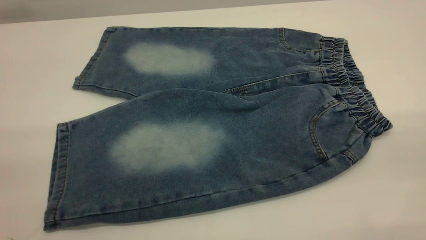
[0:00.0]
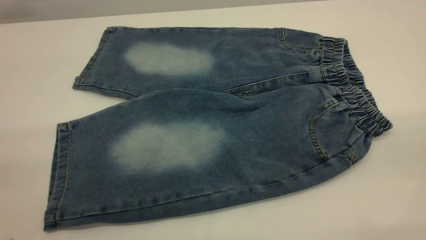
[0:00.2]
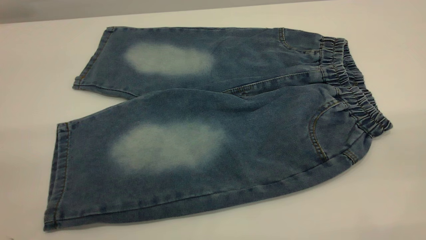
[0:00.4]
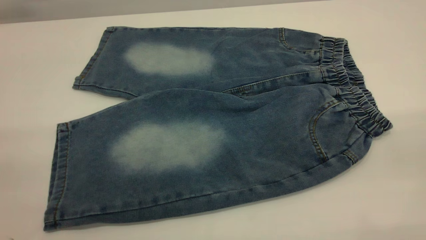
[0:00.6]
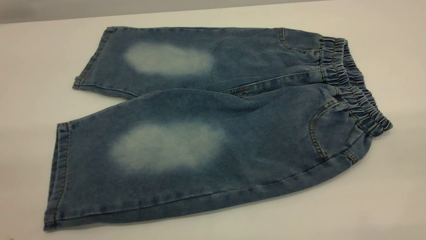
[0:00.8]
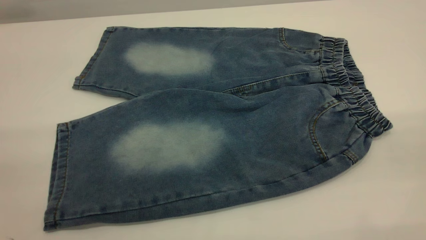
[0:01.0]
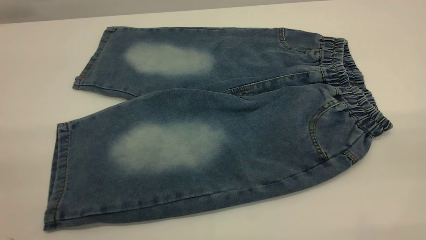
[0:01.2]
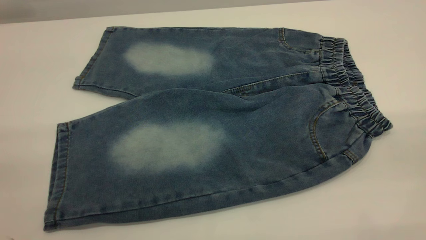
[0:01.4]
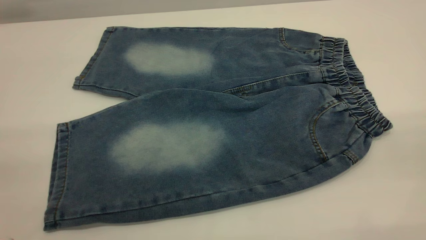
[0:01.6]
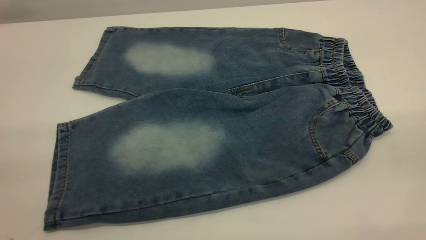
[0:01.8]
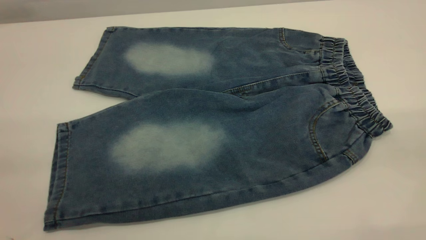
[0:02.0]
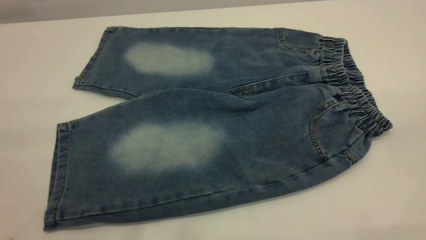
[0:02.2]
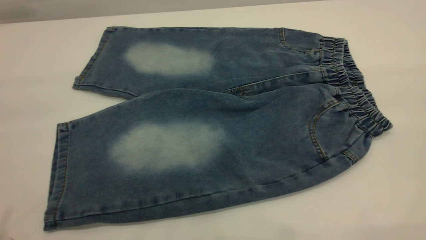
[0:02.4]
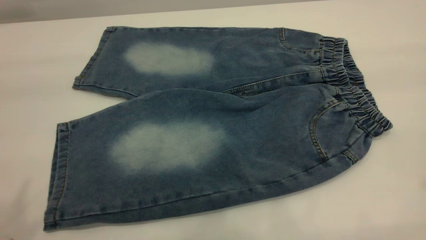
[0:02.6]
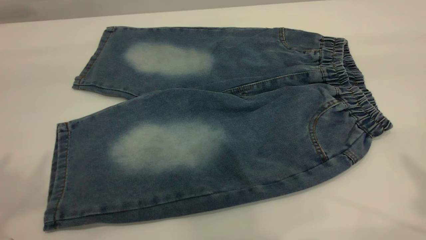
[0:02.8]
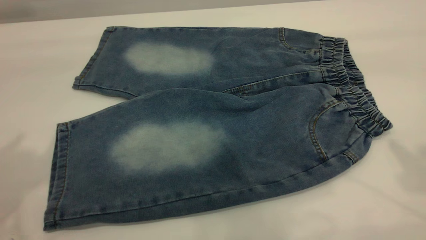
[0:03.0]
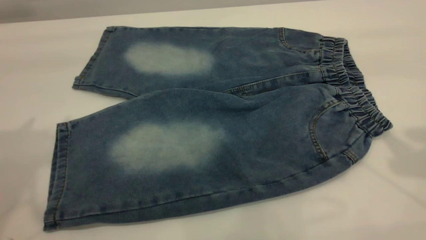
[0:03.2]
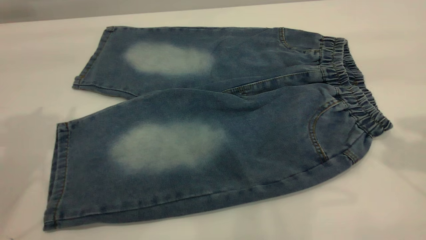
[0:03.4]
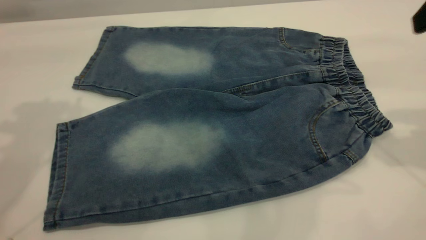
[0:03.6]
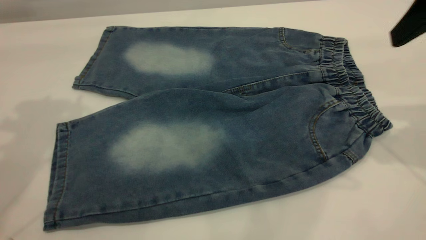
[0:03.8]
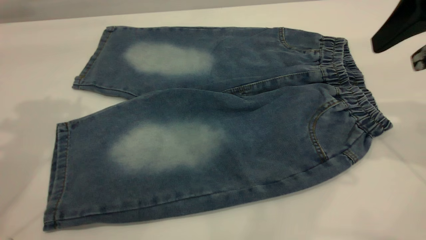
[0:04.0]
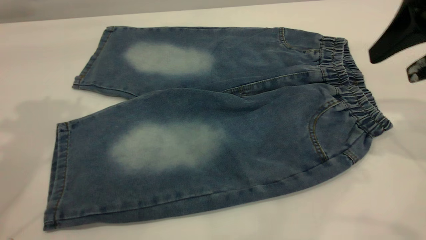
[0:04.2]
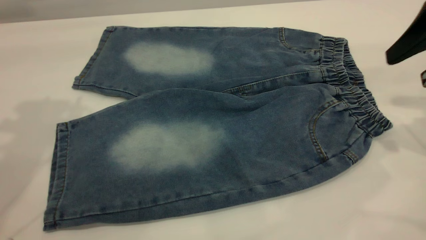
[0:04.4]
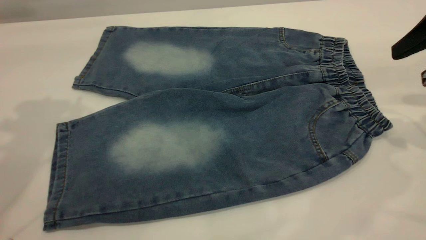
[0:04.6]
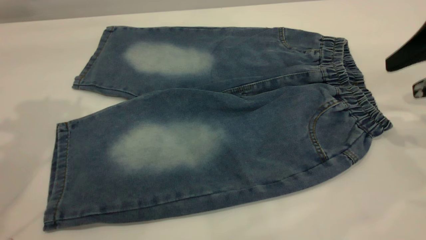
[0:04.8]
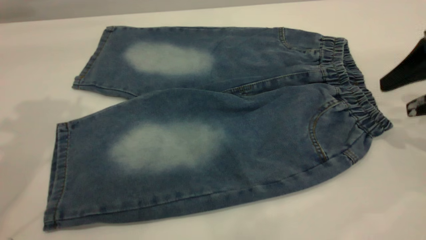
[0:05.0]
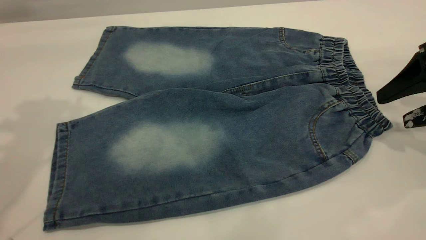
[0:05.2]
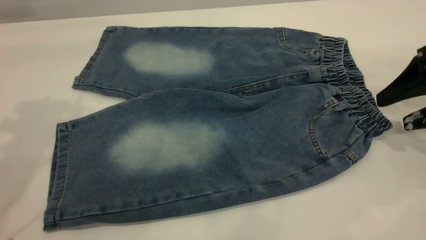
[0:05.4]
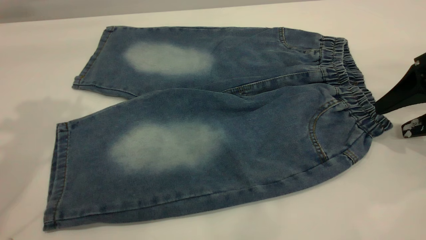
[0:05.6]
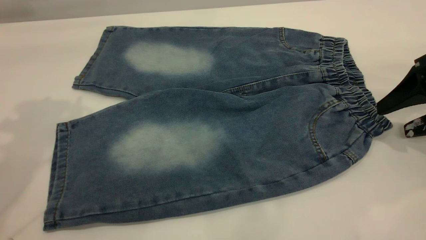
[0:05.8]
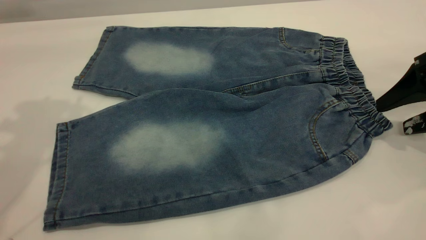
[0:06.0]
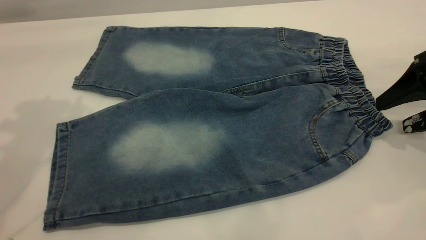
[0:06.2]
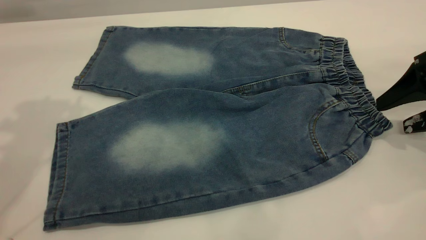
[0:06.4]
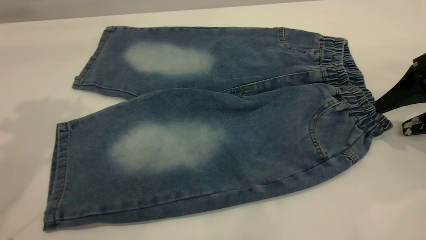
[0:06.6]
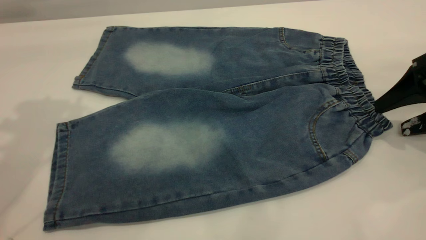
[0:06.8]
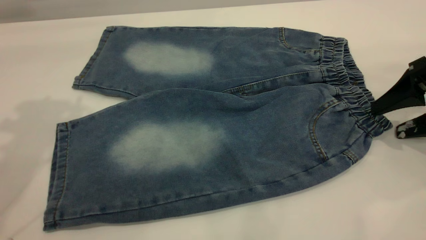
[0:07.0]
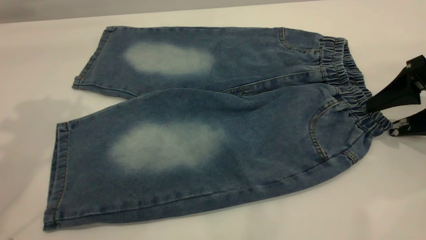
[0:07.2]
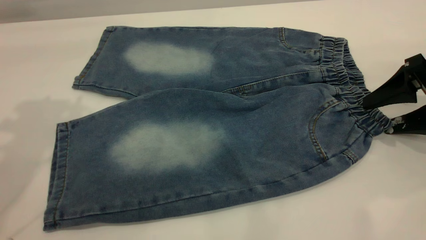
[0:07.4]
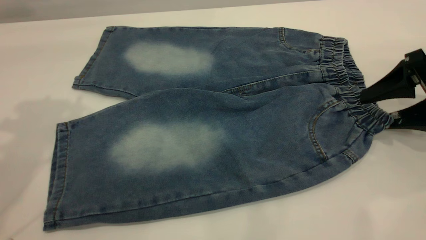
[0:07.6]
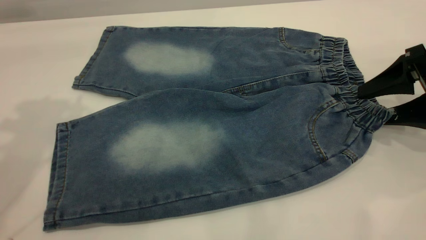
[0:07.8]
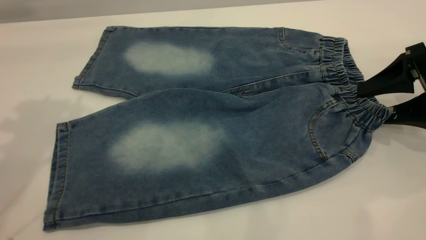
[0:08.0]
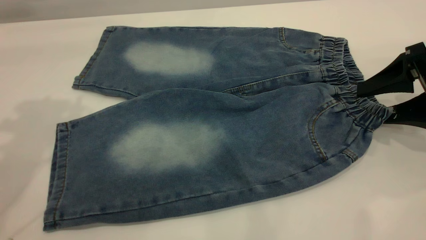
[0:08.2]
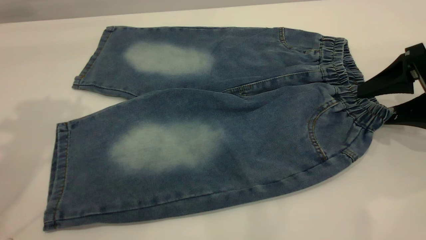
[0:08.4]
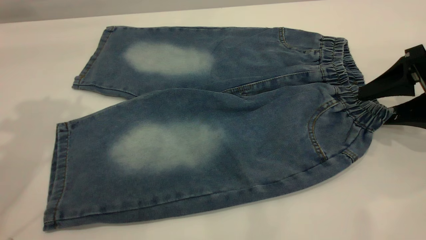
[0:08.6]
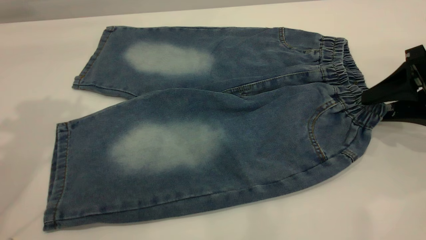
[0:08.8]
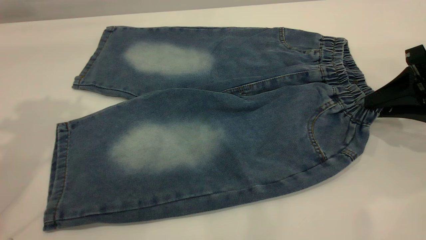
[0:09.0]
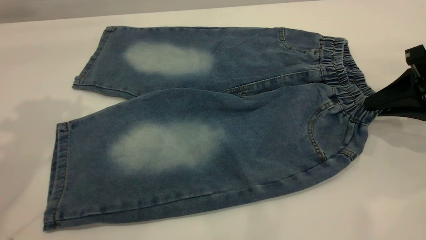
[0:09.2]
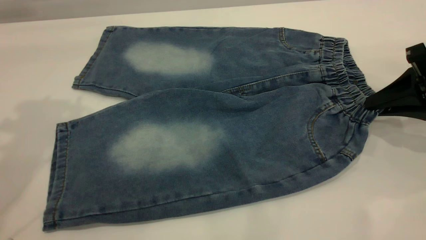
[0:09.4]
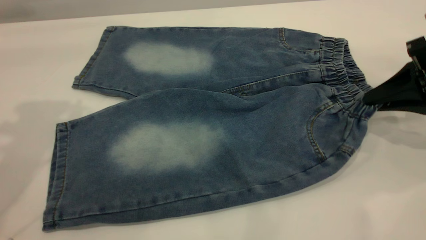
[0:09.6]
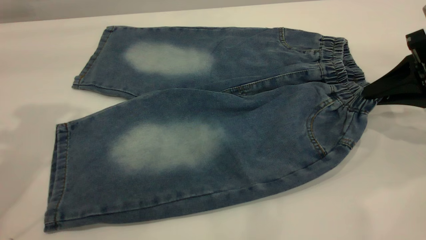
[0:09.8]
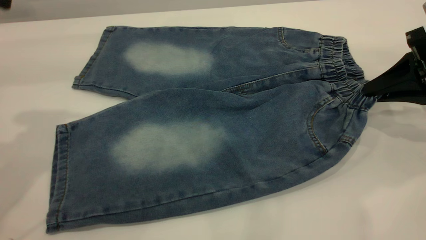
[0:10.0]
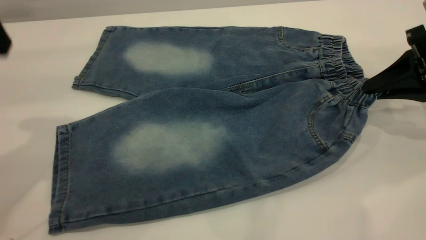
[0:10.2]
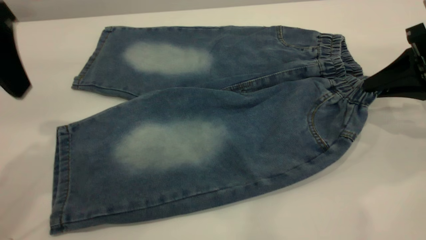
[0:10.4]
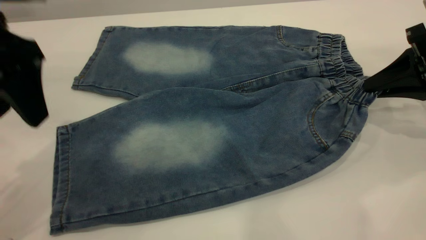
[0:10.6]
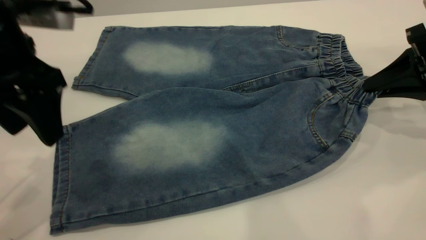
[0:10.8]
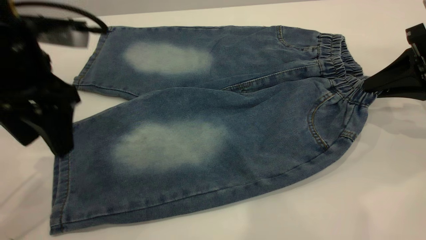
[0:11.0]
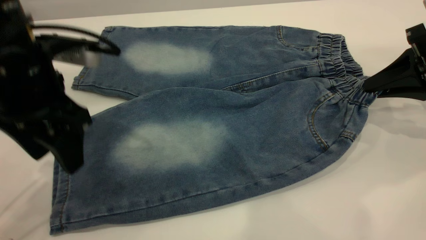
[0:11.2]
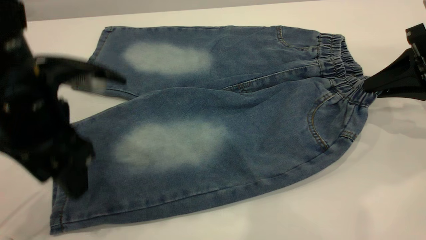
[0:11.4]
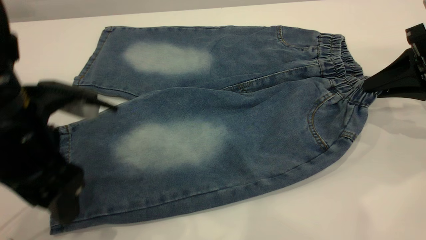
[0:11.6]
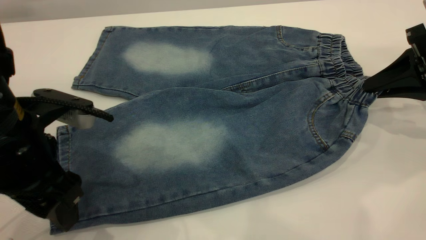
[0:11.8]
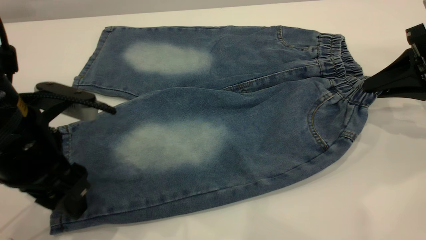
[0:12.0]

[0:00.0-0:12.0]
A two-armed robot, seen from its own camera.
0:00.0 to 0:01.6: Both grippers stay about where they are.
0:03.0 to 0:04.4: The left gripper moves forward, approximately 10 cm. The right gripper is displaced downward and forward by roughly 15 cm.
0:04.4 to 0:06.0: The right gripper goes approximately 10 cm downward.
0:06.0 to 0:07.6: The grippers stay close to where they were, moving slightly.
0:07.6 to 0:09.0: The right gripper closes its fingers.
0:09.0 to 0:10.4: The left gripper shifts roughly 5 cm downward.
0:10.4 to 0:12.0: The left gripper goes some 15 cm downward.

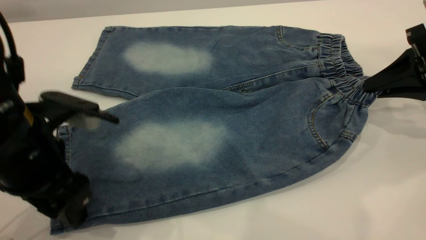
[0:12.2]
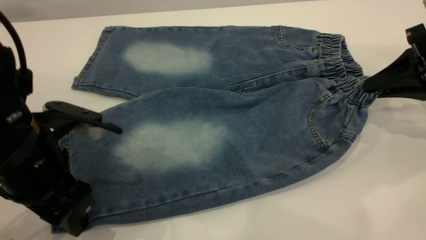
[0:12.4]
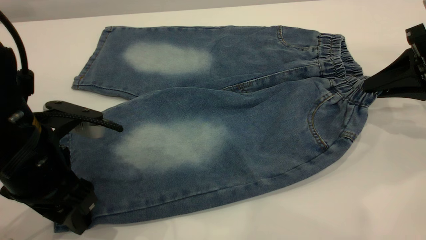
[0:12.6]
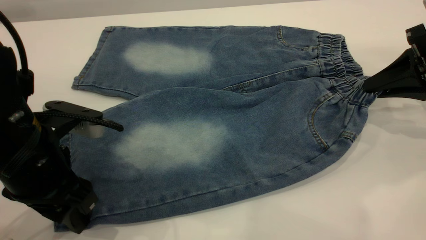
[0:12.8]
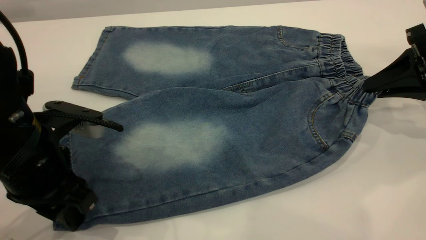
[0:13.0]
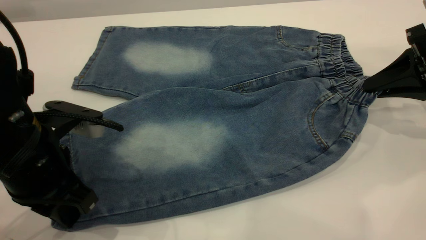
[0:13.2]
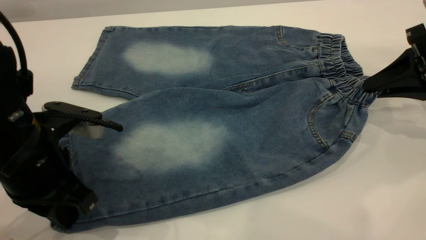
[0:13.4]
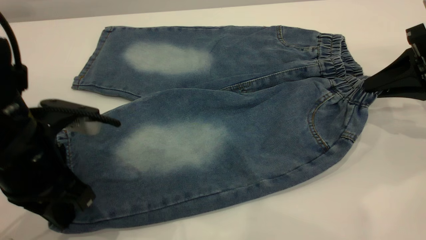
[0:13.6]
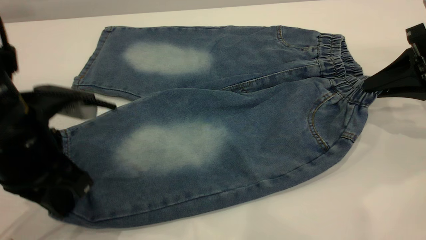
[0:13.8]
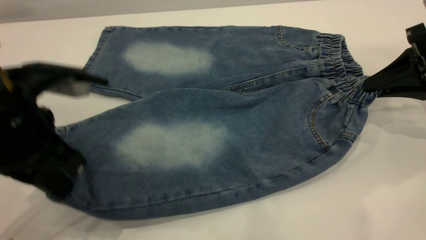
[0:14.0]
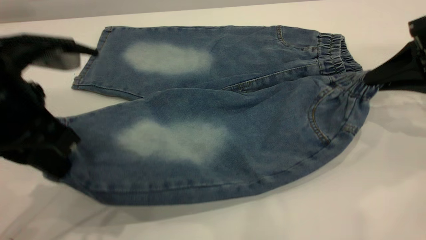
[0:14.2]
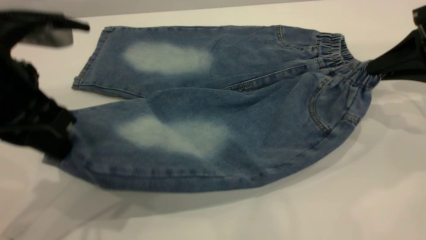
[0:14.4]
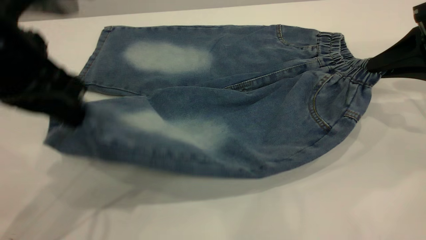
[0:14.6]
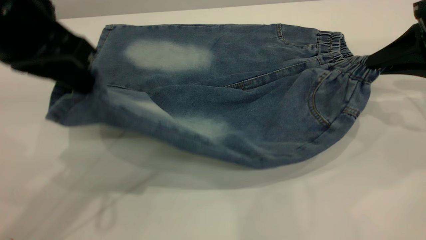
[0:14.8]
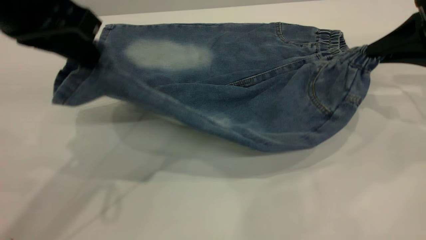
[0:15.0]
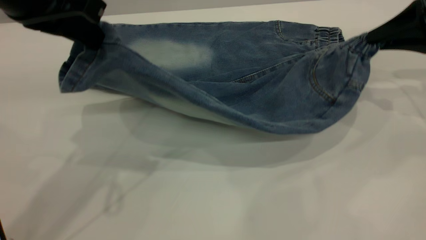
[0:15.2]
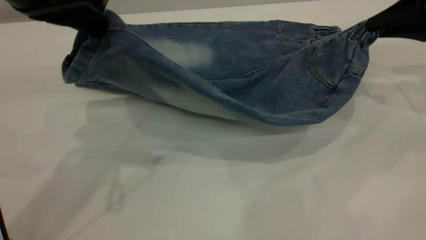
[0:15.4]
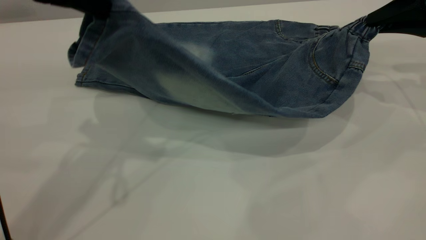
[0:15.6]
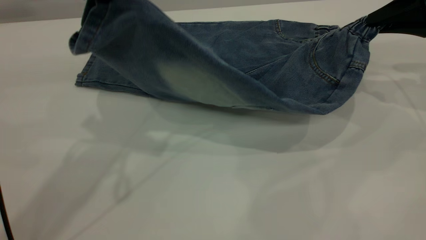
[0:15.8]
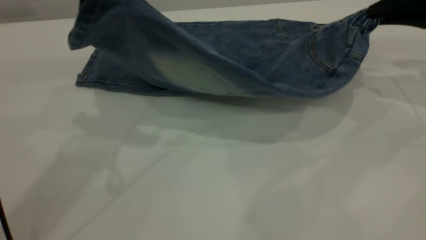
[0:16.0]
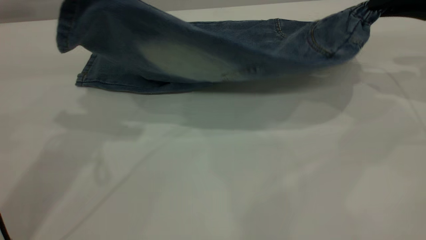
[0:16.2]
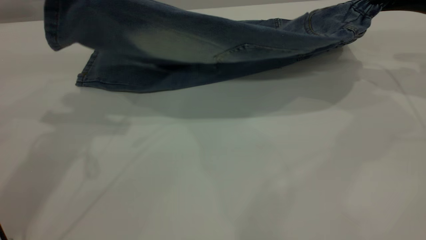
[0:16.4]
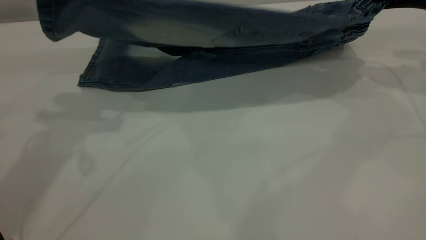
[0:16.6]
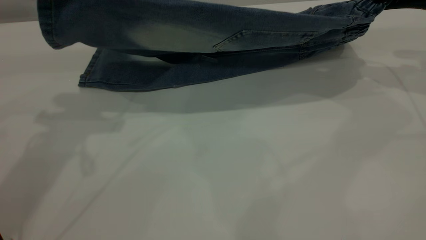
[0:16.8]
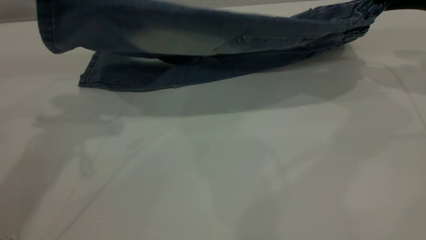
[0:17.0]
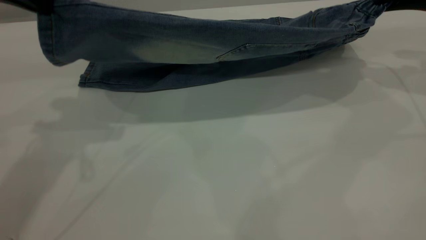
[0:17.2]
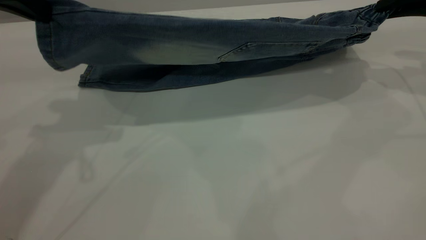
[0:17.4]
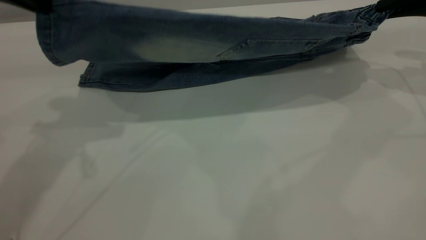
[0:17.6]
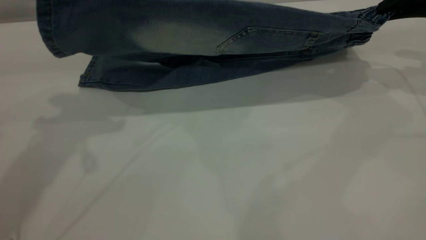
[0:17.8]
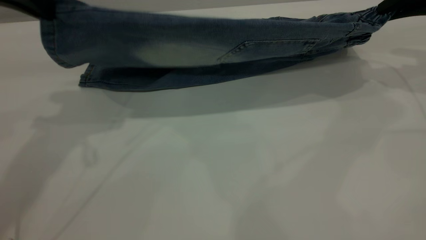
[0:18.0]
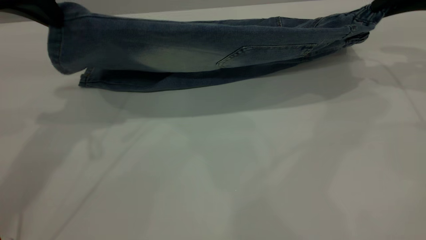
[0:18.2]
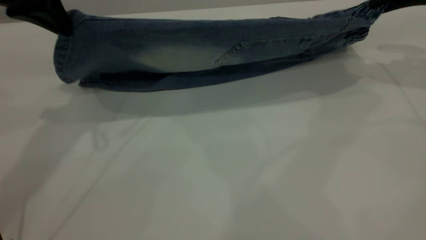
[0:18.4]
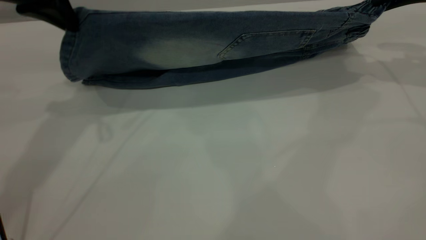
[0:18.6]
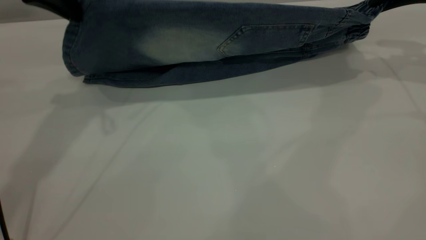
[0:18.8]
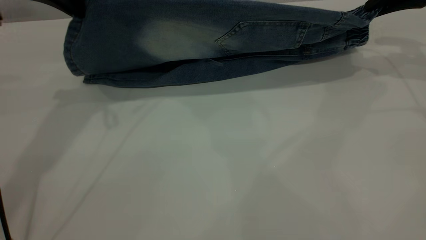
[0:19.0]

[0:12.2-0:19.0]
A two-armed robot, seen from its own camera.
0:12.2 to 0:13.6: The left gripper closes its fingers.
0:13.6 to 0:15.0: The left gripper shifts approximately 15 cm upward and forward.
0:15.0 to 0:16.2: The right gripper moves about 5 cm; the left gripper shifts by about 5 cm.
0:16.2 to 0:17.6: There are only small adjustments of the grippers.
0:17.6 to 0:19.0: The left gripper moves forward, about 10 cm.
